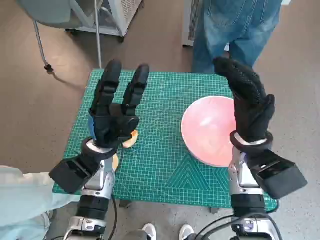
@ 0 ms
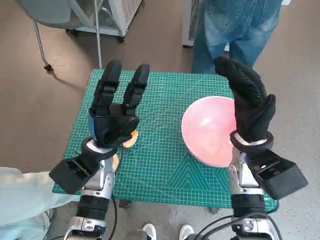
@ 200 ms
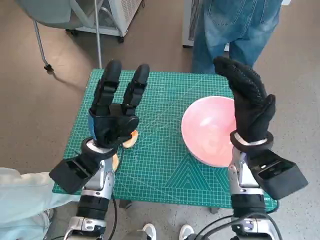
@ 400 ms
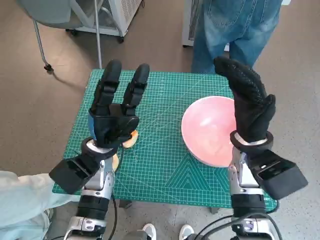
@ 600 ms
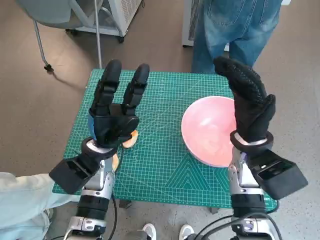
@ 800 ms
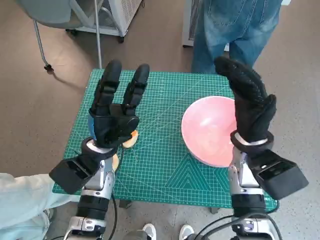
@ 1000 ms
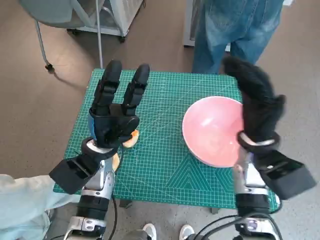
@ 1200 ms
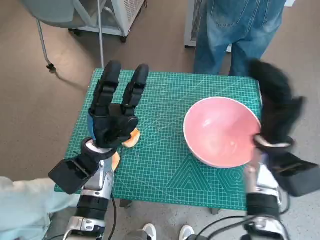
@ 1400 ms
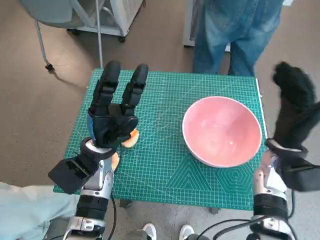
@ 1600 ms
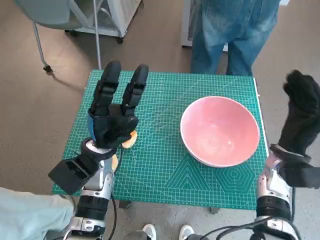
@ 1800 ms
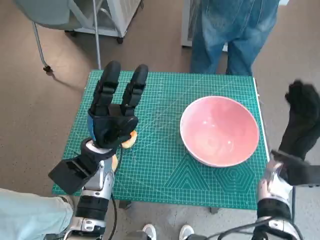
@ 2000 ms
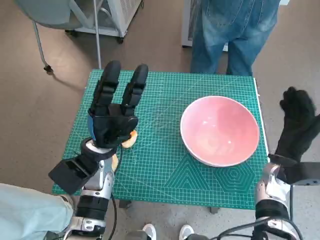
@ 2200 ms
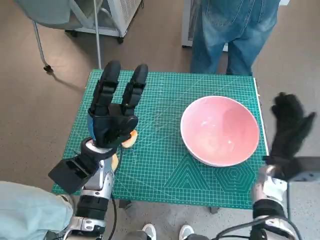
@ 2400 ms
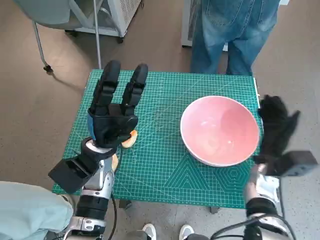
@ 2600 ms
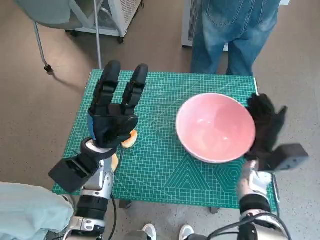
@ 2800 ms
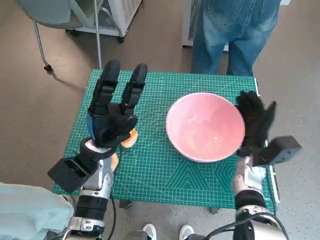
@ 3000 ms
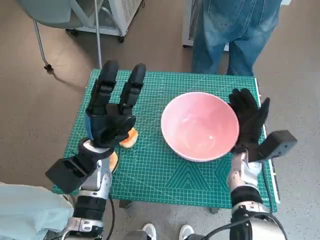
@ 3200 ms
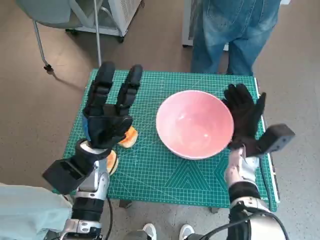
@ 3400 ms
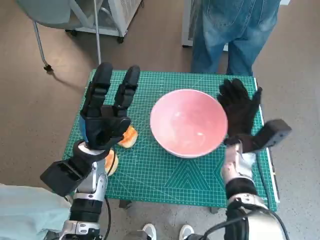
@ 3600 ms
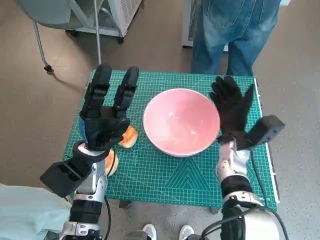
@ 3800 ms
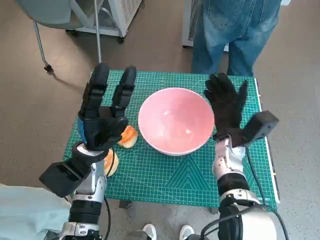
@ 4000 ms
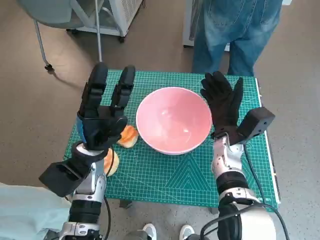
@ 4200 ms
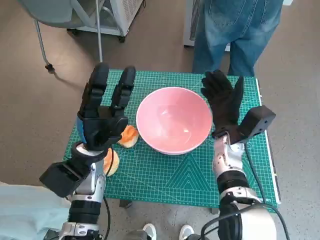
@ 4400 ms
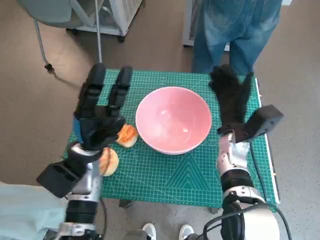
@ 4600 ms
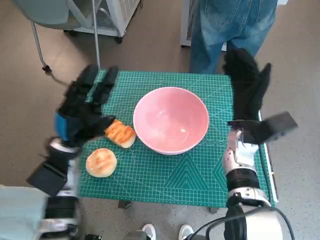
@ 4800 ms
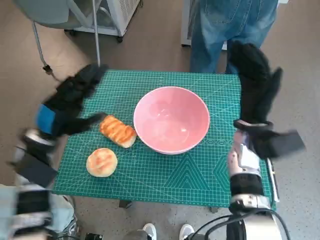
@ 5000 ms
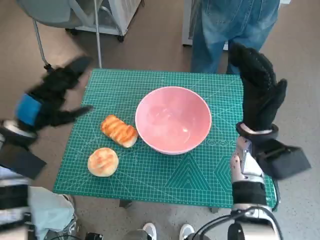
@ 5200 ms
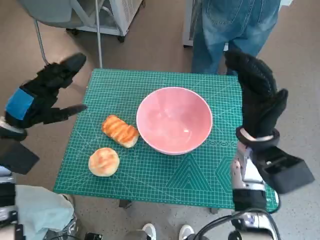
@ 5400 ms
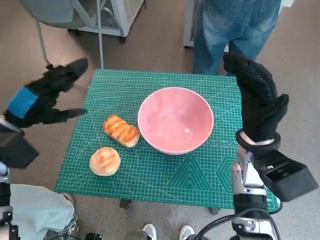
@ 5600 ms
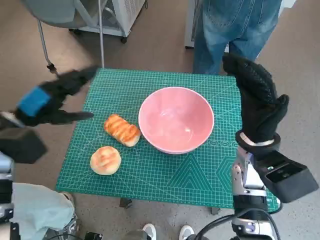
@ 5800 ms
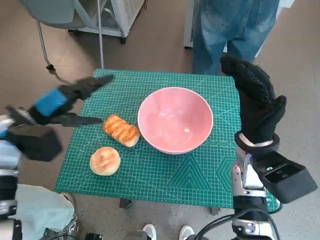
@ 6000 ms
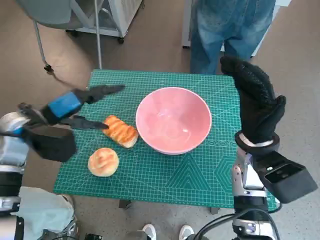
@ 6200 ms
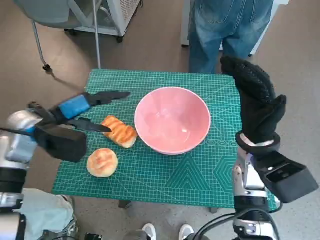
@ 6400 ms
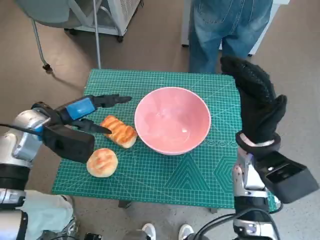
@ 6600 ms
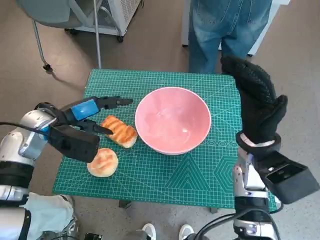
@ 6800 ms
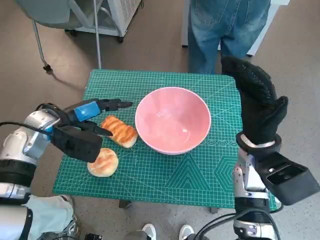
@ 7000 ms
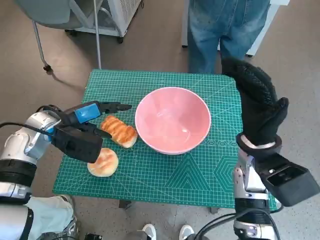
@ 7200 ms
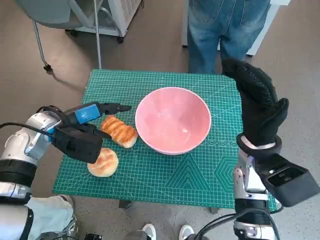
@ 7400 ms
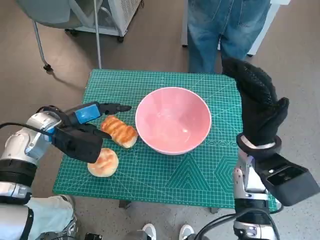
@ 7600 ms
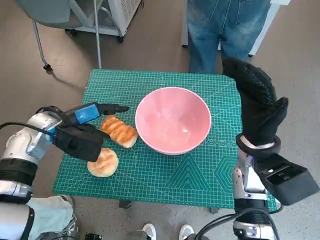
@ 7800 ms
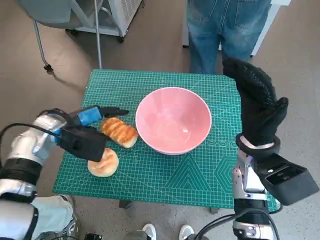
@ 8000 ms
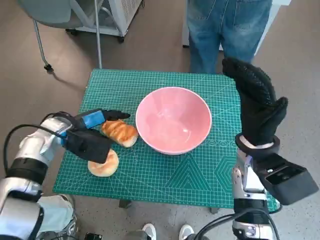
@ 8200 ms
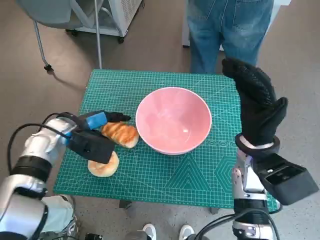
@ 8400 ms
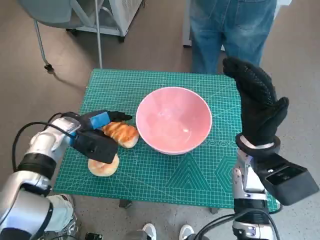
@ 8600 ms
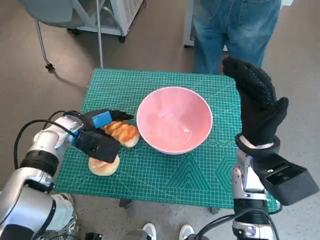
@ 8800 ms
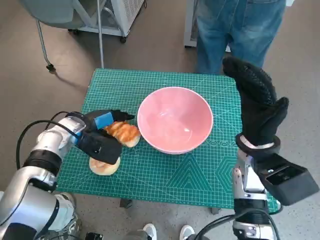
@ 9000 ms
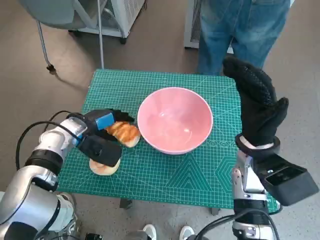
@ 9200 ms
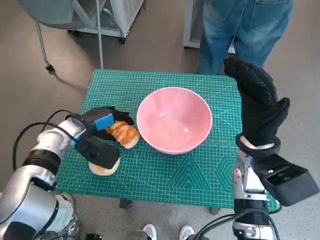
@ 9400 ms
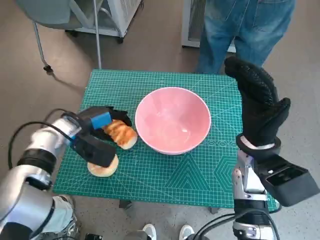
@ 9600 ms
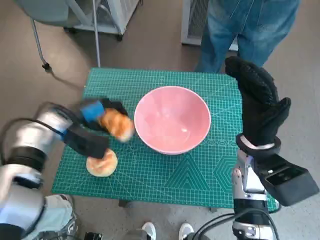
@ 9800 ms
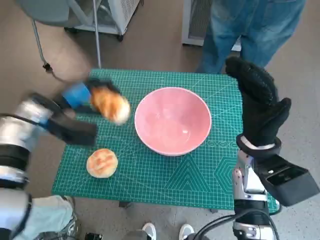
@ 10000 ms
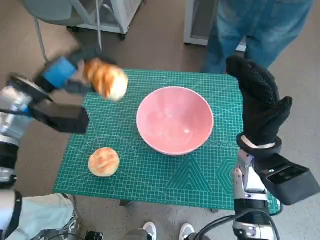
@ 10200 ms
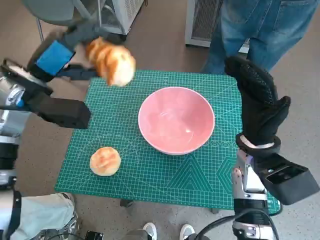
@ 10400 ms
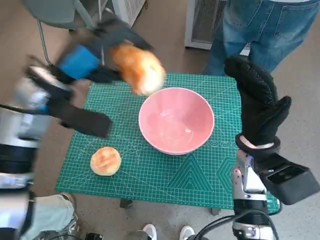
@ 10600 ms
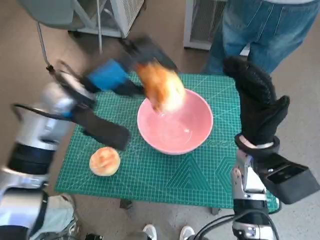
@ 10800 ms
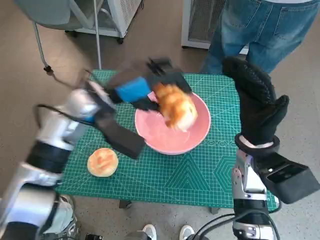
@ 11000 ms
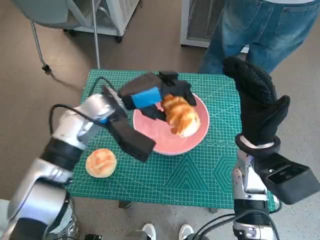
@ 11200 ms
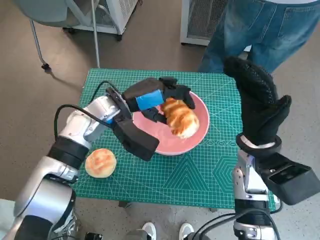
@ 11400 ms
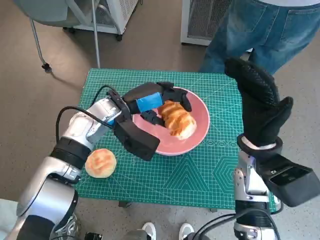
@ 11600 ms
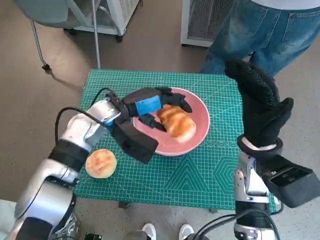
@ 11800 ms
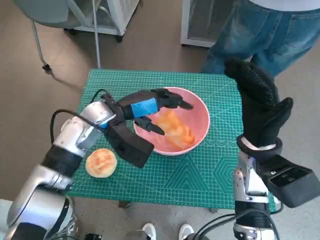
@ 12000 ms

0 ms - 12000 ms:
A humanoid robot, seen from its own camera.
Task of the whole recording: Push the bowl to the center of the table and put the bread into the bowl.
Step, 0 ms - 4600 ms: Move the pink bowl to the center of table with right hand.
Step, 4800 ms - 9400 ms: Grasp the long bread with left hand.
1600 ms - 3000 ms: The right hand travels downward by about 5 cm.
3000 ms - 4400 ms: The right hand moves to the left, approximately 5 cm.
4400 ms - 6000 ms: The right hand shifts some 5 cm upward. The left hand moves to the left and upward, approximately 15 cm.
6000 ms - 7600 ms: The left hand changes place by about 5 cm.
7600 ms - 9000 ms: The left hand changes place by about 5 cm.
9000 ms - 10400 ms: The left hand heads upward, covering approximately 15 cm.
10400 ms - 12000 ms: The left hand is displaced to the right and downward by some 15 cm.

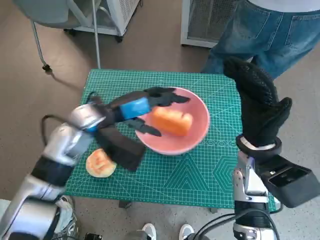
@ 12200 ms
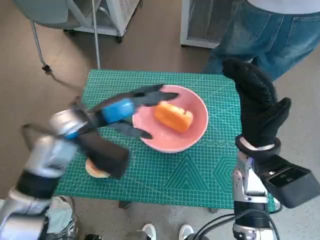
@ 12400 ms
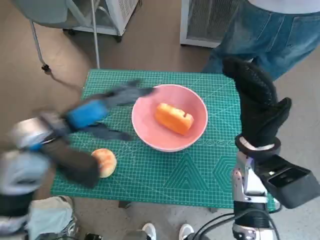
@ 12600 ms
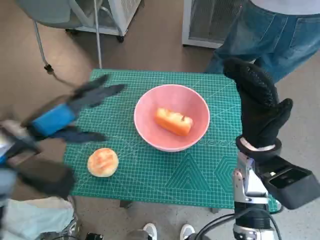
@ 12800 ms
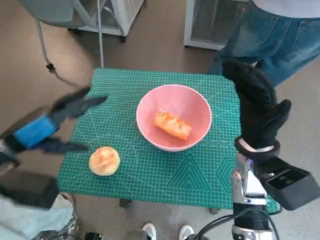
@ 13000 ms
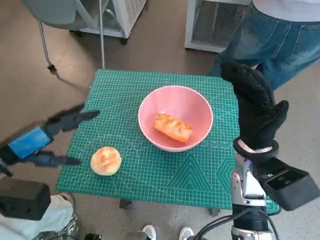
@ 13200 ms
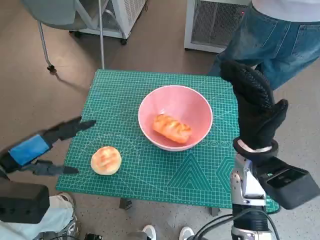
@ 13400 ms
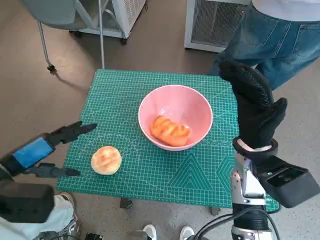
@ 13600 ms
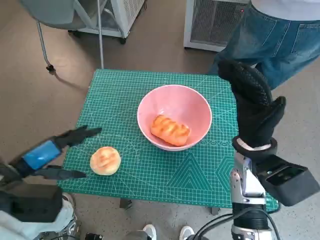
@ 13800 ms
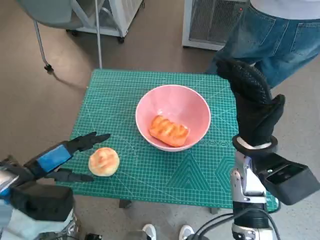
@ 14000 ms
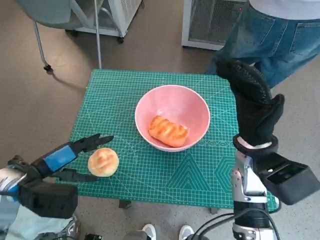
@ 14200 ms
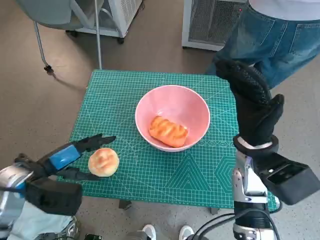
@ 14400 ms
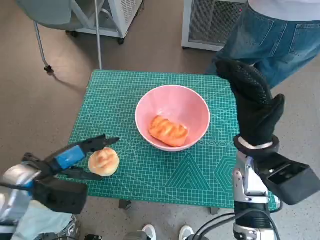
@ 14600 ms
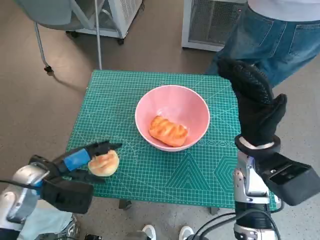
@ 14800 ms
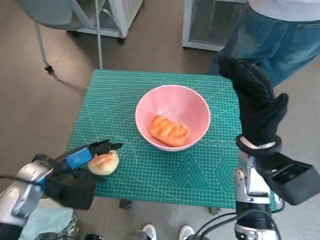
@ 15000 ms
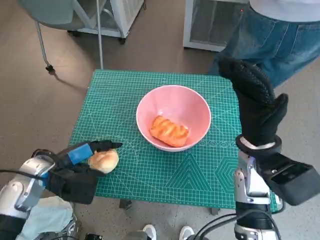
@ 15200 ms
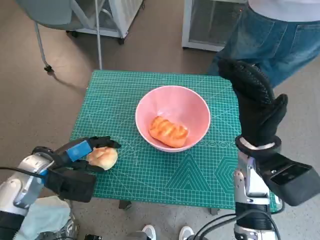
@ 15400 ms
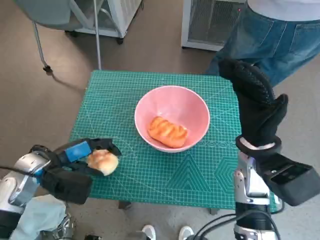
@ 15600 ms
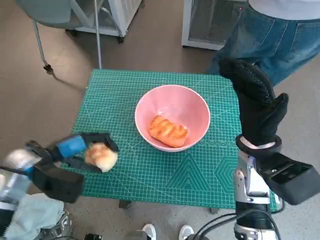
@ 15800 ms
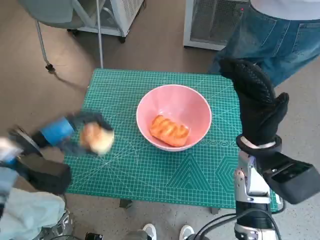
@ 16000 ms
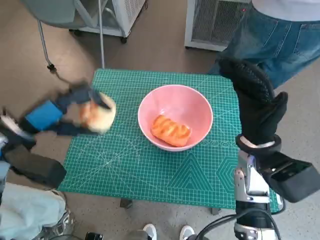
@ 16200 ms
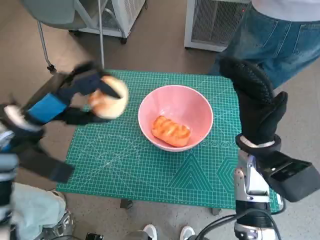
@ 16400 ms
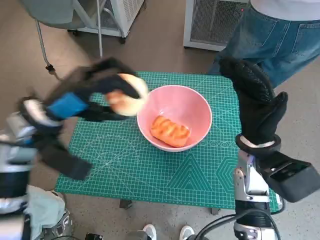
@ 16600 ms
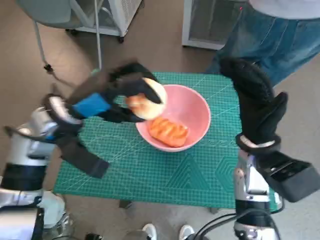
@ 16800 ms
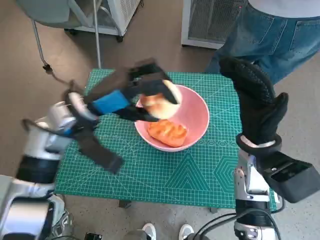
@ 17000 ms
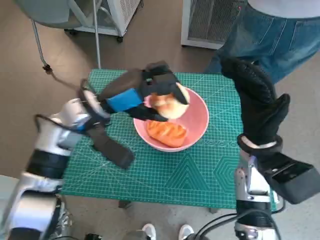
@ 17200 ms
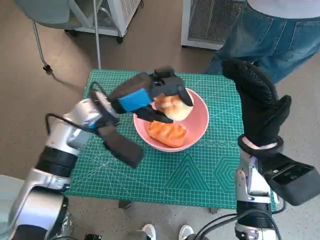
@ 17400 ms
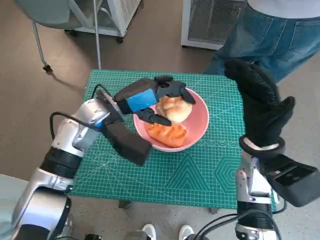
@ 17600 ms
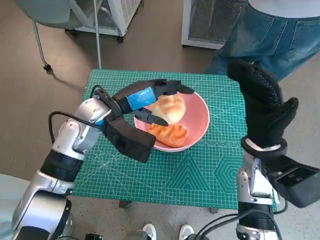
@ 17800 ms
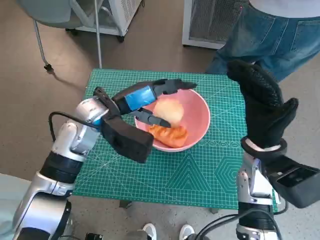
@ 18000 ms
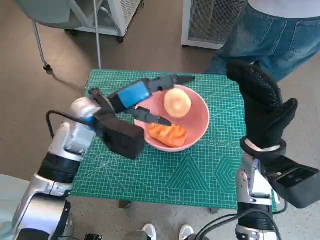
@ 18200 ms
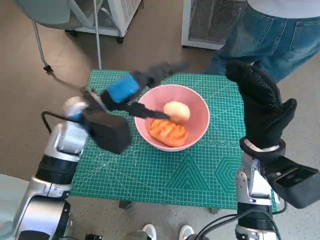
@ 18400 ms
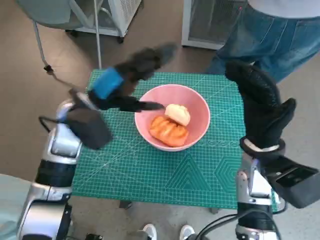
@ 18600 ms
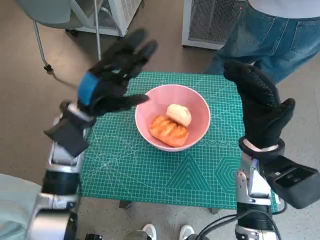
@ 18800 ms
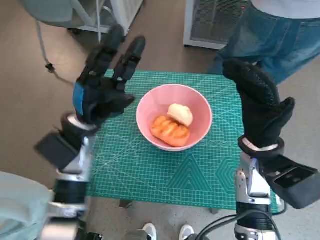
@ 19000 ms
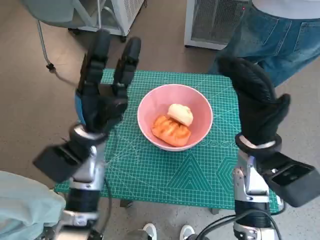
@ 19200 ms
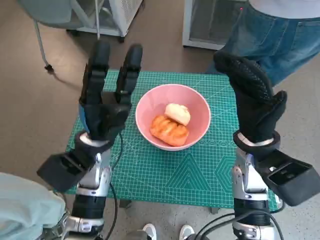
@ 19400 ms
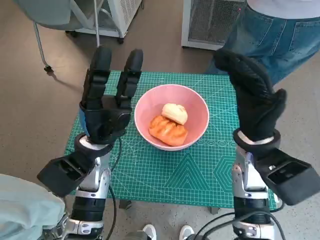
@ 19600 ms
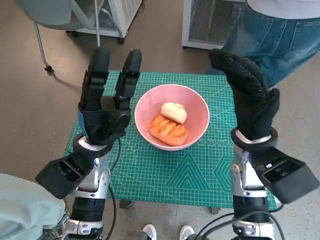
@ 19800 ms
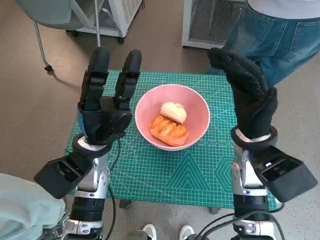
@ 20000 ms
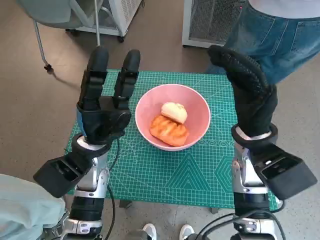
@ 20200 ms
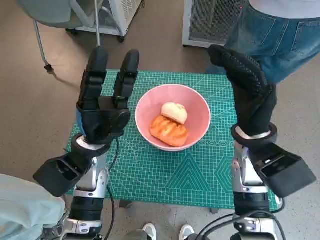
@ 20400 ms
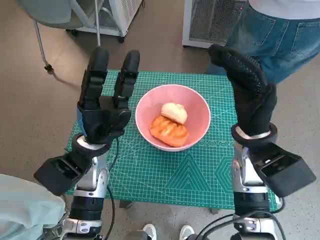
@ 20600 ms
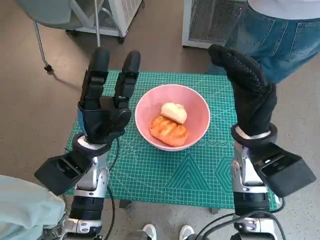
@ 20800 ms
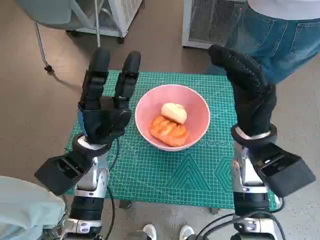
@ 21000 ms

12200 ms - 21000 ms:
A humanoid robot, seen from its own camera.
Task of the whole recording: Push the bowl to the center of the table and put the bread into the bowl.
Step, 12400 ms - 15400 ms: Grasp the round bread with left hand.
Step, 15600 ms - 18200 ms: Place the round bread in pink bowl with left hand.
12200 ms - 13600 ms: The left hand is displaced to the left and backward by some 20 cm.
13600 ms - 15200 ms: The left hand goes about 10 cm downward and forward.
15200 ms - 16600 ms: The left hand travels upward by some 10 cm.
16600 ms - 18000 ms: The left hand is displaced to the right by some 10 cm.
18000 ms - 19600 ms: The left hand moves downward and backward, about 10 cm.
19600 ms - 21000 ms: Neither hand changes place.
